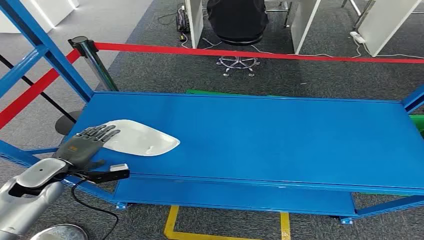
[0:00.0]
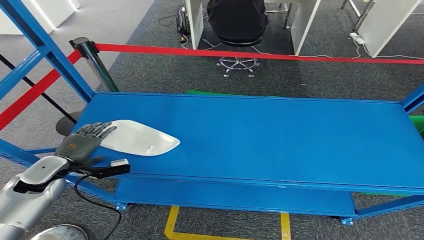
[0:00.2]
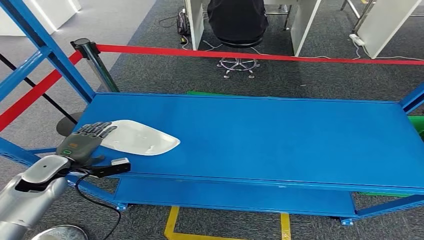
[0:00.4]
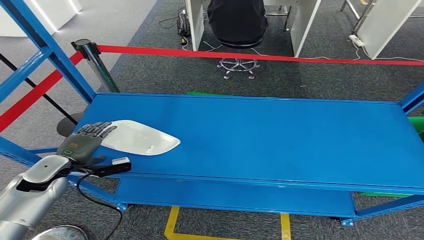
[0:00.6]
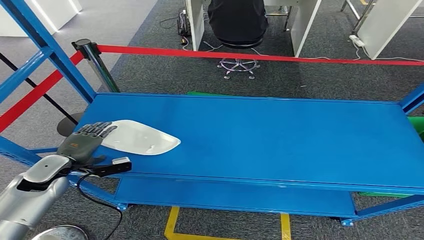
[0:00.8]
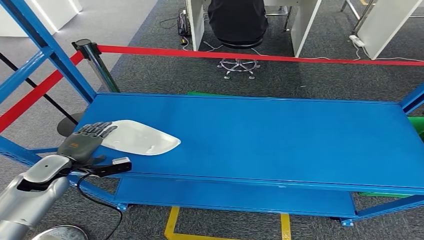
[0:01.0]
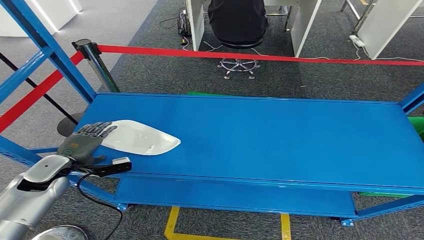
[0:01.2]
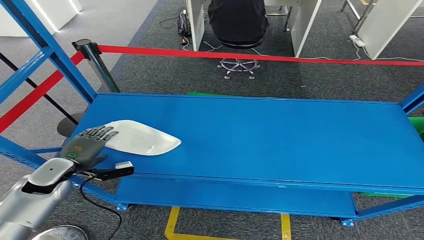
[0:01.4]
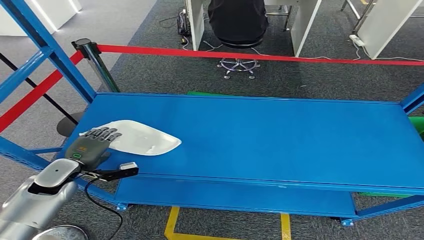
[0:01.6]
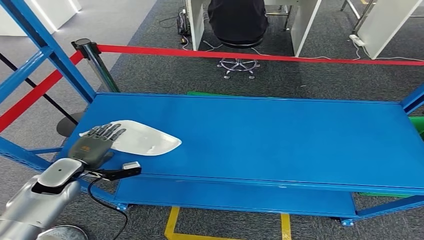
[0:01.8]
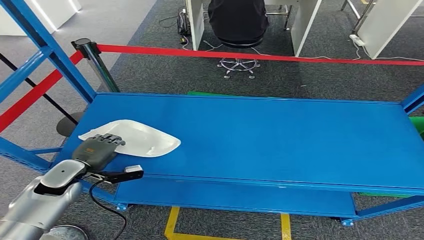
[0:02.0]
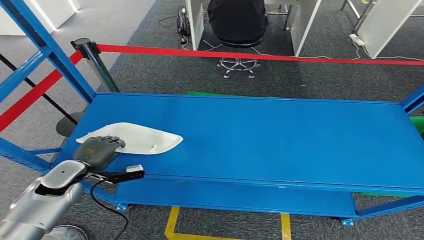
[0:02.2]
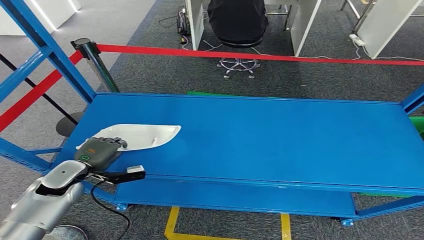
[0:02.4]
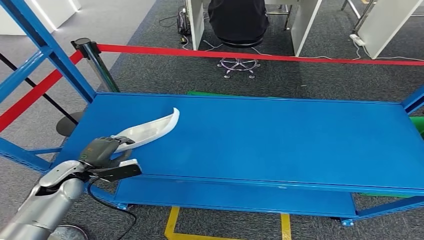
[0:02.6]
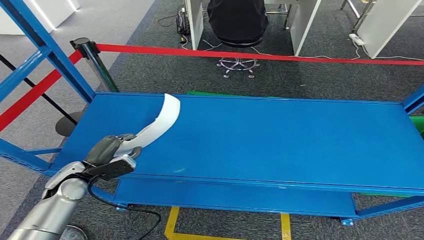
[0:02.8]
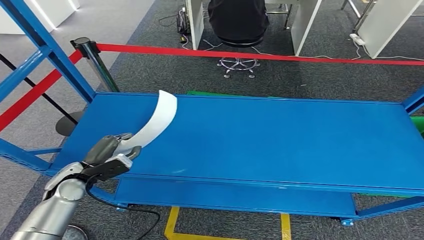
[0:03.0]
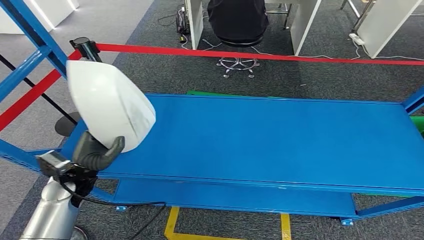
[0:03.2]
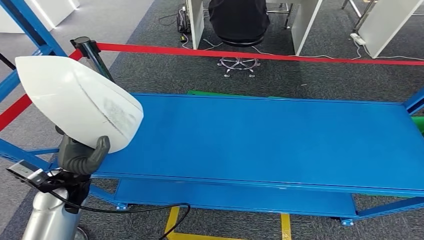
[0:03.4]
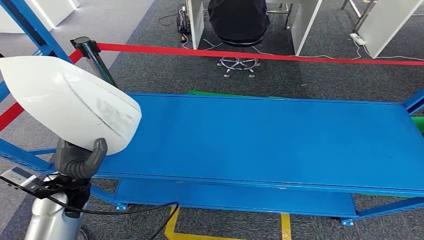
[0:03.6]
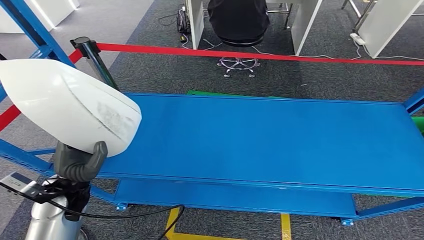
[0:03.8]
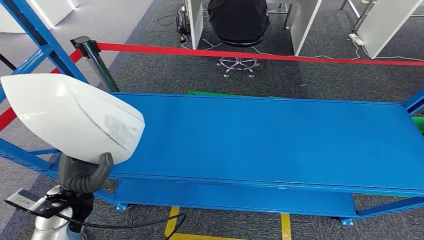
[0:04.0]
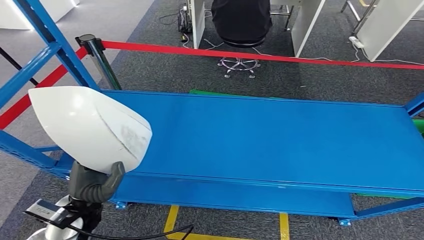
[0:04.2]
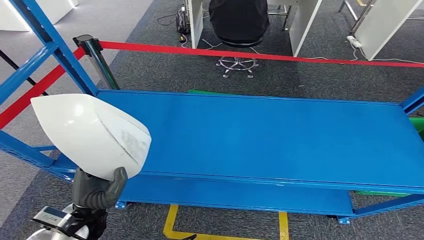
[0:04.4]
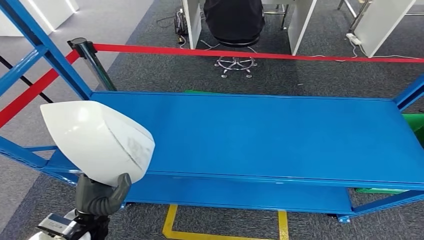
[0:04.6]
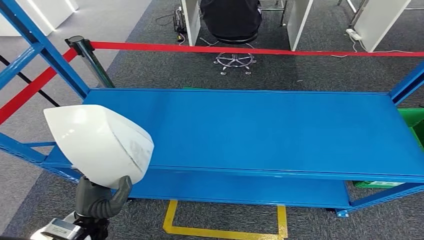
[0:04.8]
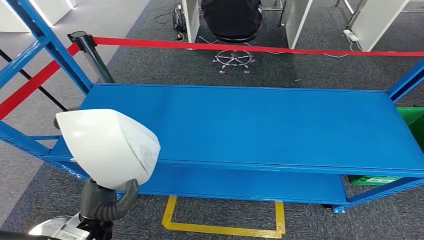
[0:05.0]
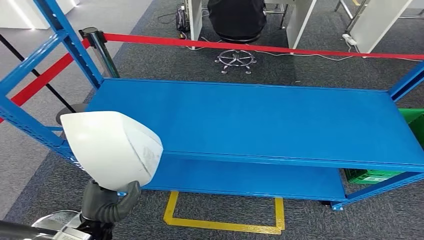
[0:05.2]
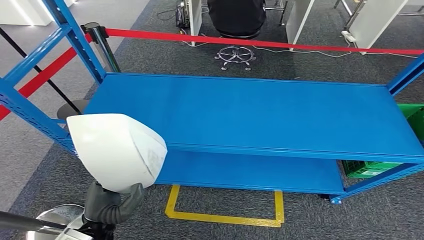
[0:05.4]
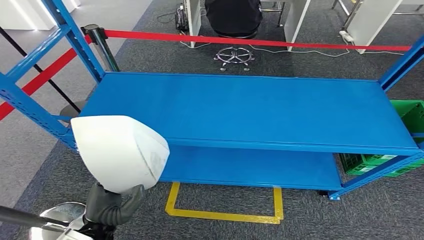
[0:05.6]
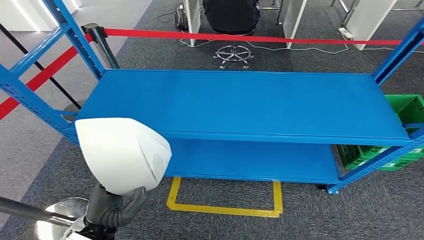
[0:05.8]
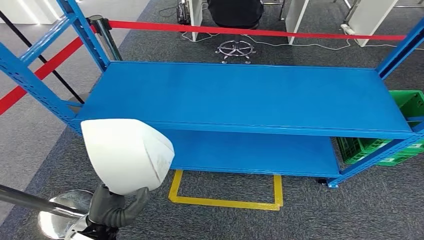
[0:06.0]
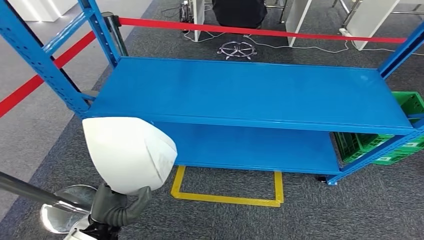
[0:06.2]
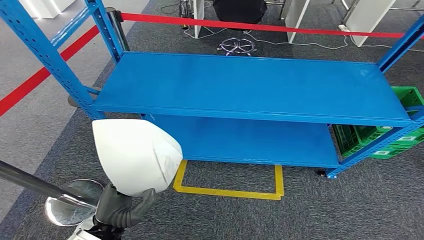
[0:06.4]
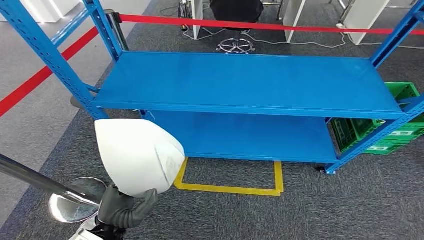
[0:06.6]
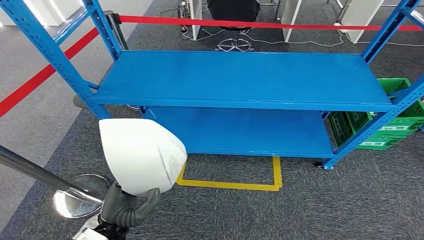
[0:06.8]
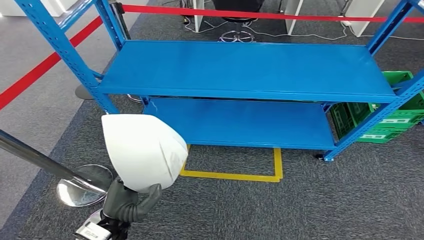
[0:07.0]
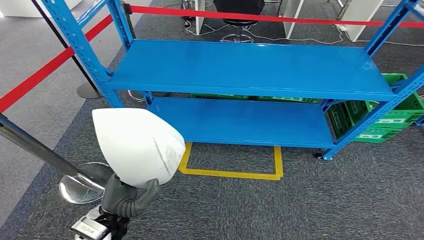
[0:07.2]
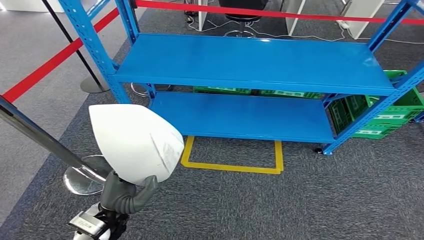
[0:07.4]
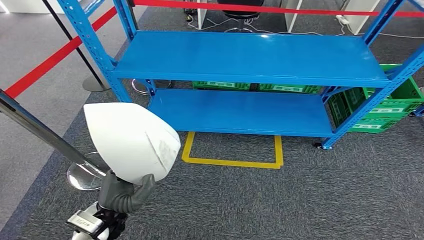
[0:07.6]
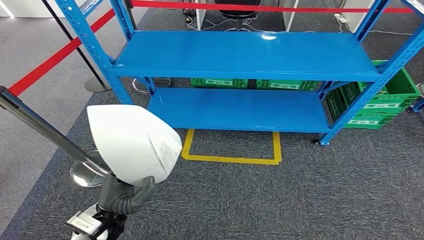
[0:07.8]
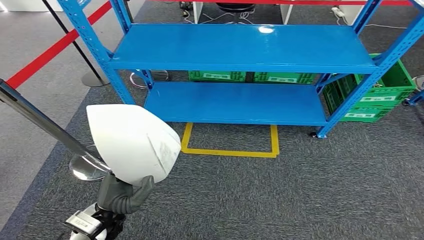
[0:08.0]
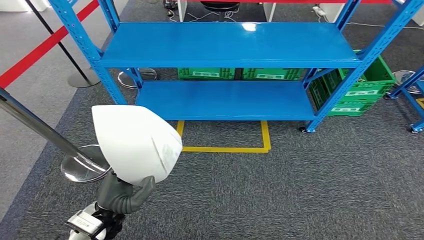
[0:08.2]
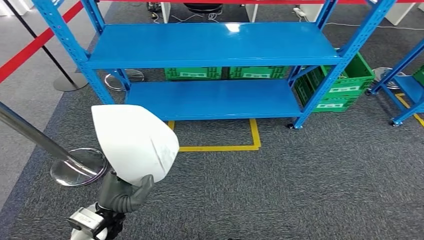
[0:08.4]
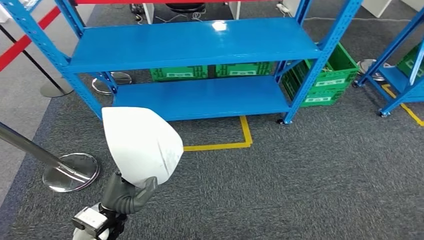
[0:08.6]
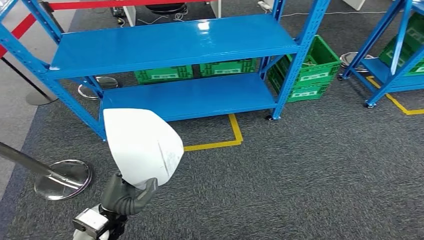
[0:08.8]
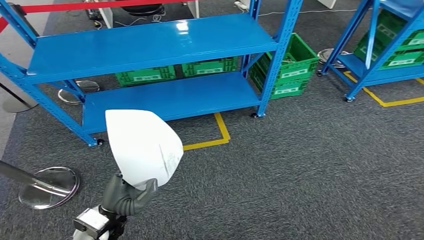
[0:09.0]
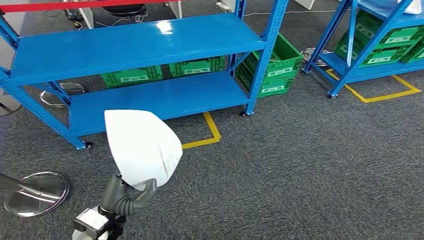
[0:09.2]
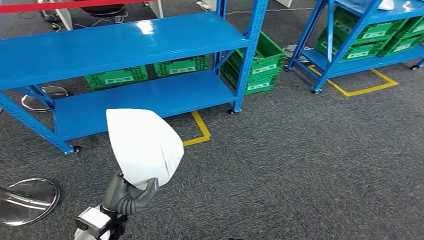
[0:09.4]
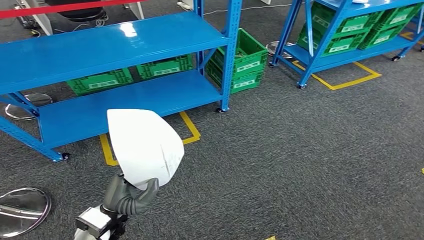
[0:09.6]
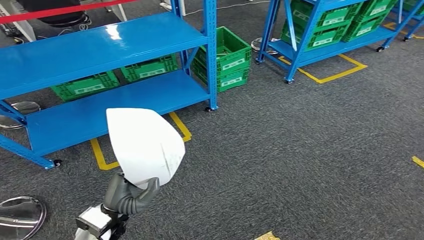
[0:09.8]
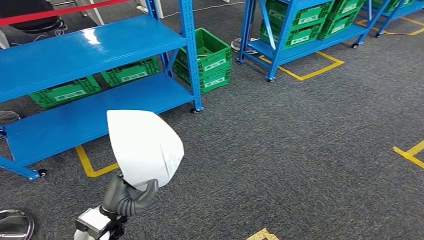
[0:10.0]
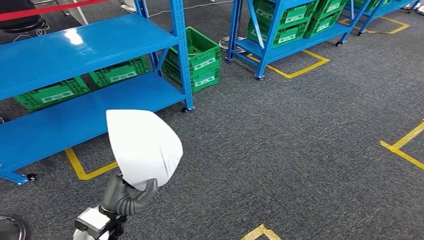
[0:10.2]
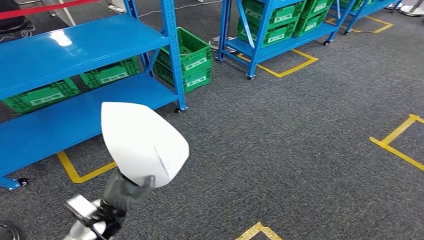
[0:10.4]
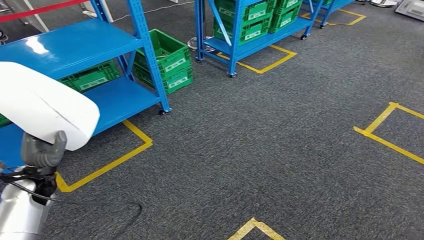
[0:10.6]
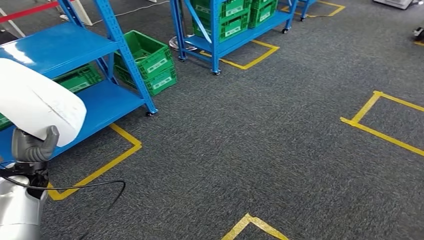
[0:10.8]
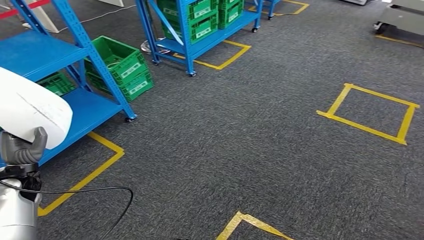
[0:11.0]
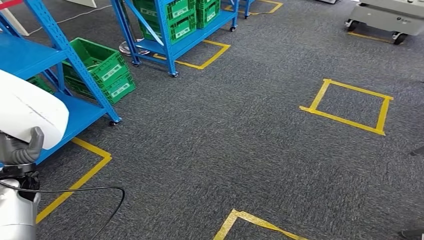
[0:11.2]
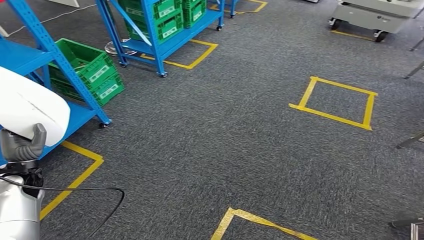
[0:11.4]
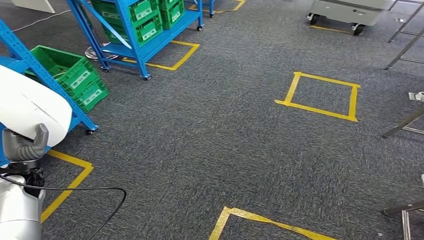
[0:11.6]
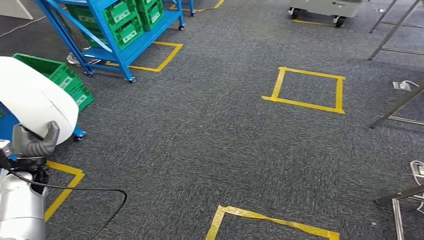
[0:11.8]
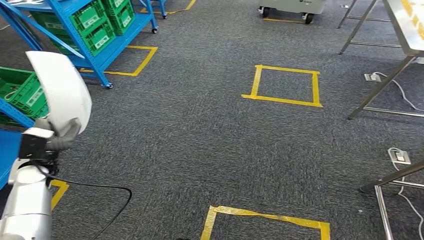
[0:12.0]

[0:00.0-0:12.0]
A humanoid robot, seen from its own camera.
Step, 0:00.0 to 0:05.0: Take small components from the rack.
0:01.6 to 0:03.0: The left hand travels to the right by approximately 5 cm.

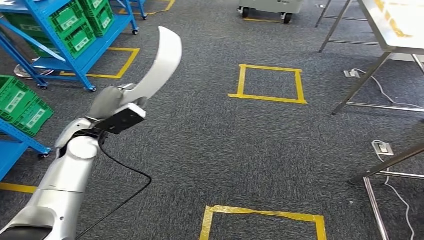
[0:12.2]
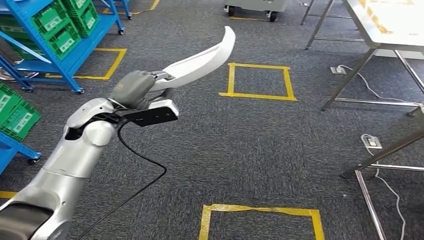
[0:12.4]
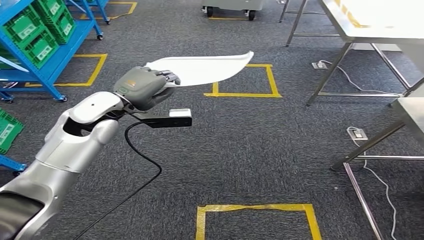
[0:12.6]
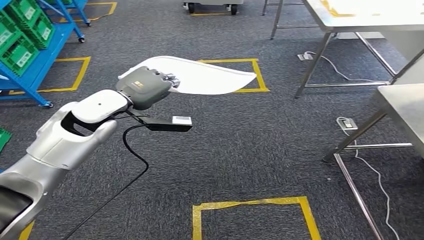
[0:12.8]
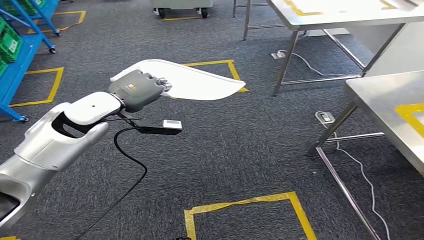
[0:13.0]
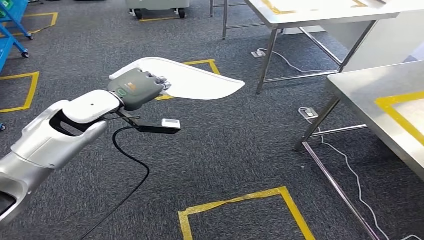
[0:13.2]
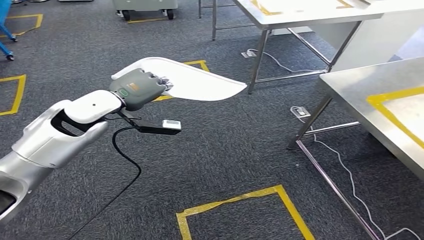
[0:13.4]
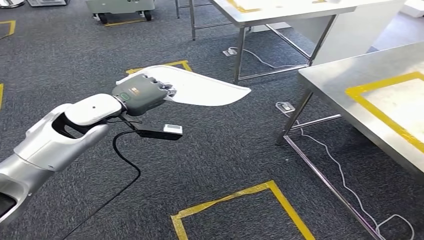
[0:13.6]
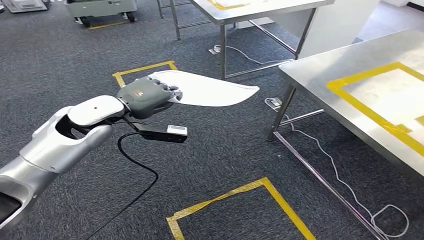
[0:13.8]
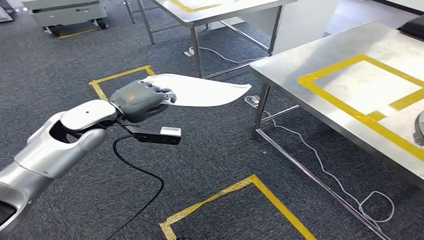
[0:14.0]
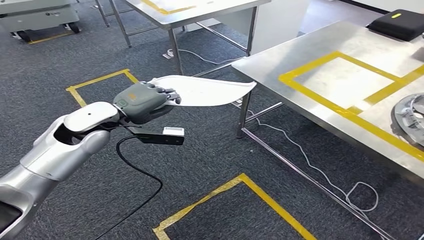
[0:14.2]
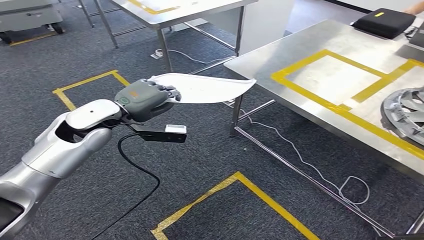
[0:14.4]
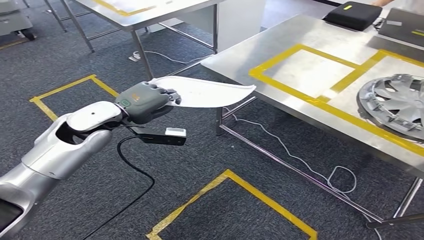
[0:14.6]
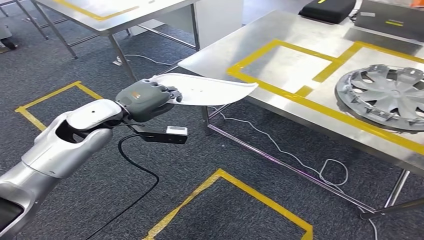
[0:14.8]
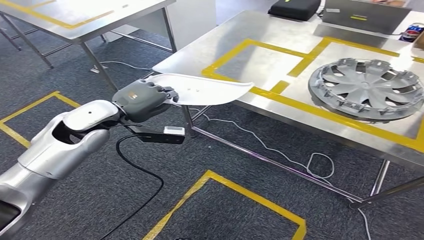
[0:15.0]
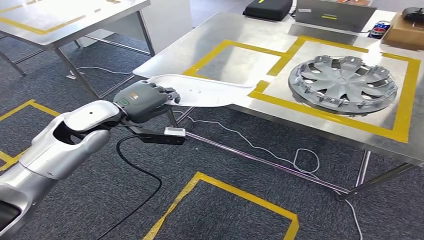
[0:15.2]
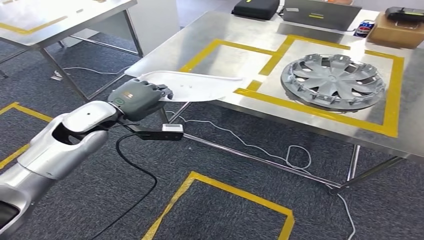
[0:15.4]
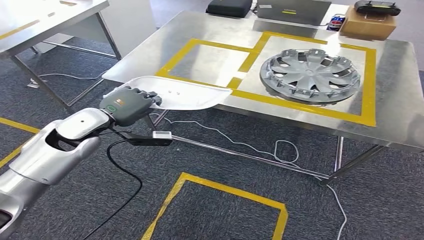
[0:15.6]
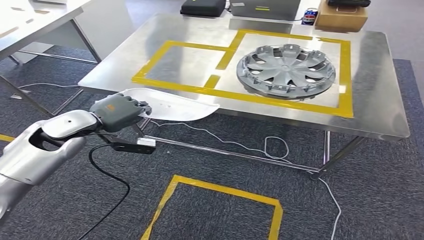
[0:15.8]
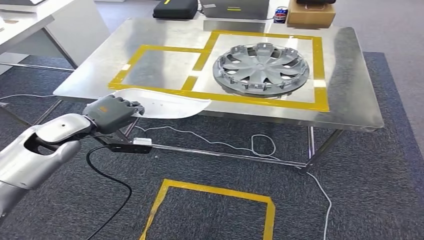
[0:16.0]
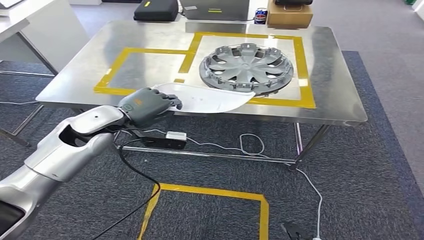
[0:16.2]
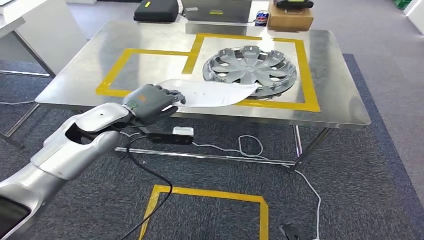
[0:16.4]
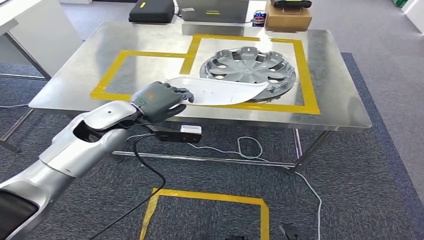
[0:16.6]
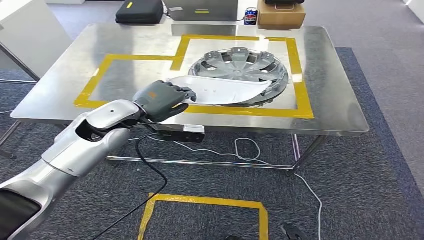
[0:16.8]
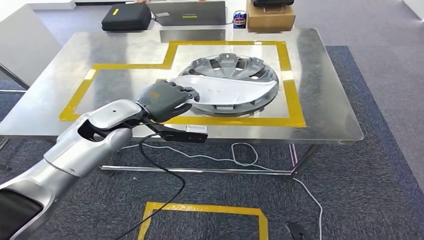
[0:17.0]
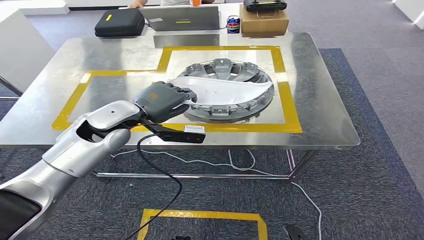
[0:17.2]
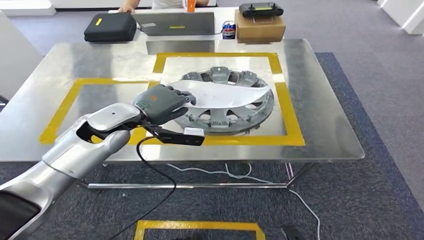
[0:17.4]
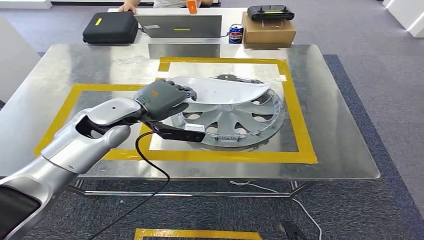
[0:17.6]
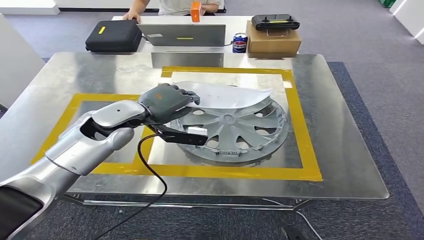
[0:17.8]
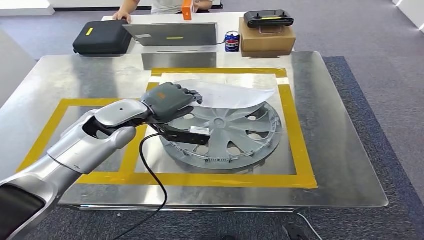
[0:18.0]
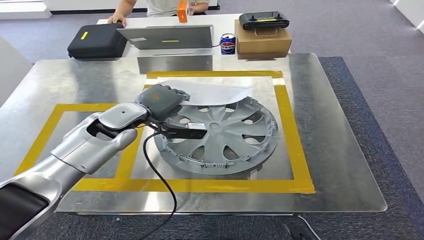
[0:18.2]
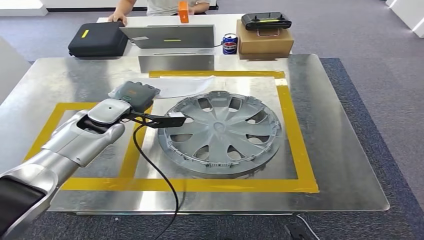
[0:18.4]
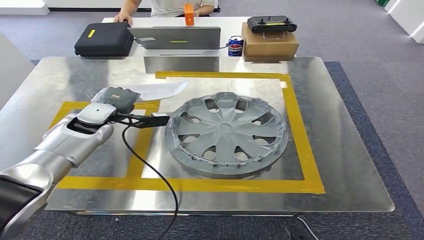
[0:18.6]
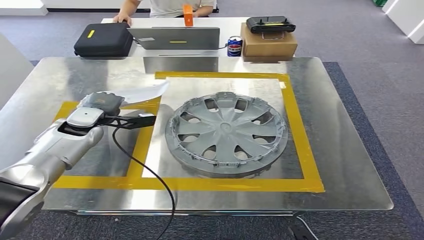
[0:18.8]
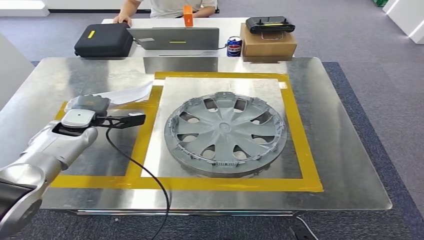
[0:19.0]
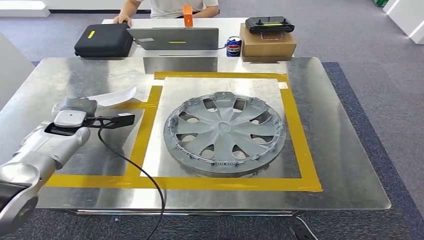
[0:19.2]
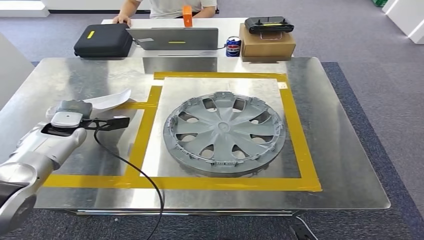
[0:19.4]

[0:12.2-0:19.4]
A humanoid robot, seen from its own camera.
Step, 0:12.2 to 0:17.0: Move the small parts to the workbench.
